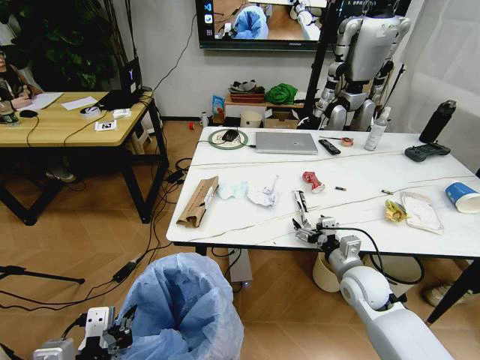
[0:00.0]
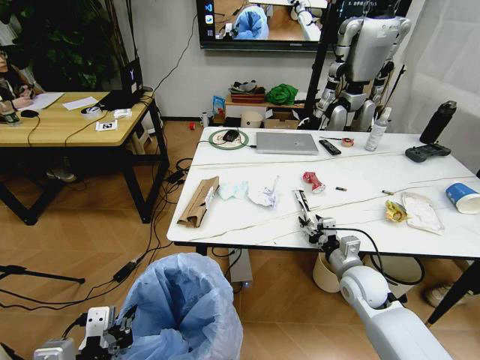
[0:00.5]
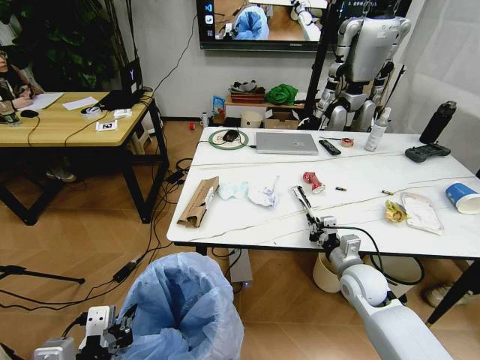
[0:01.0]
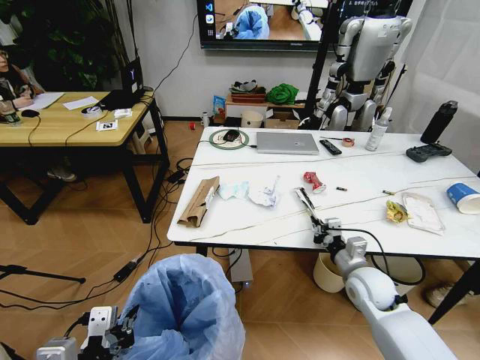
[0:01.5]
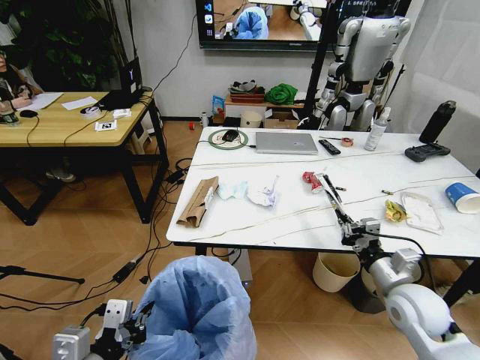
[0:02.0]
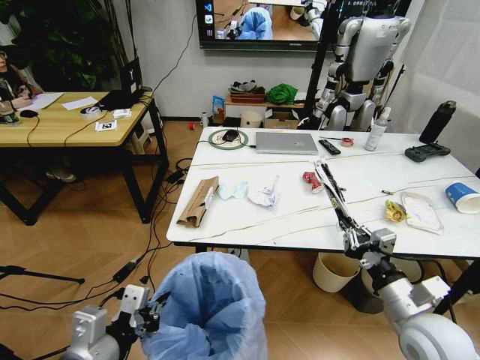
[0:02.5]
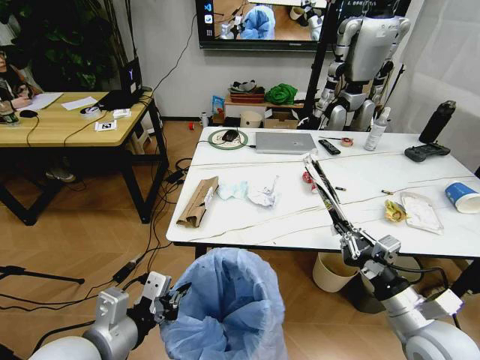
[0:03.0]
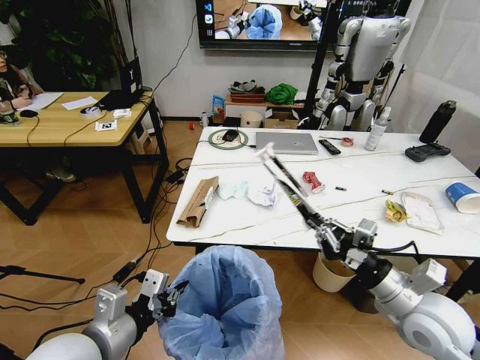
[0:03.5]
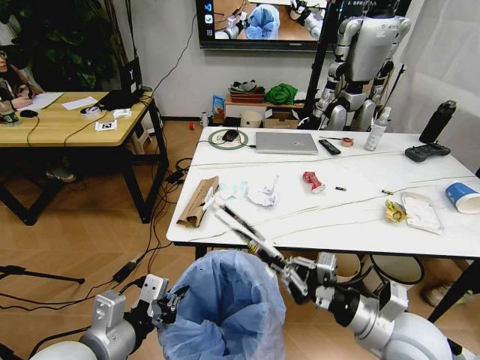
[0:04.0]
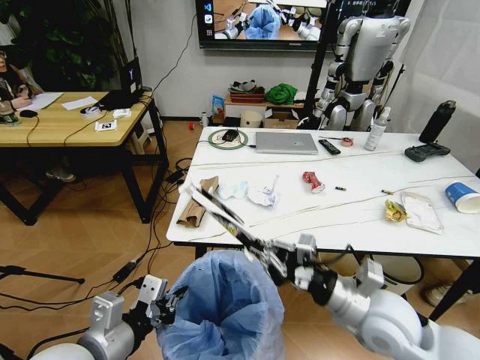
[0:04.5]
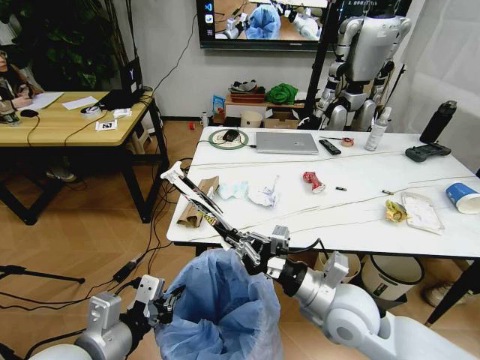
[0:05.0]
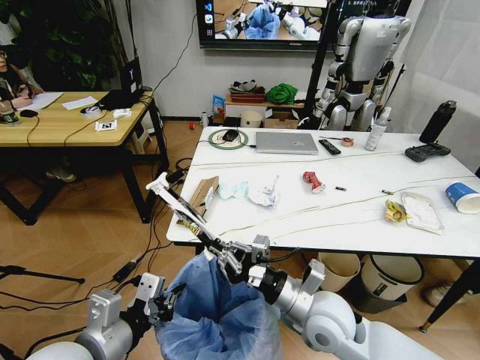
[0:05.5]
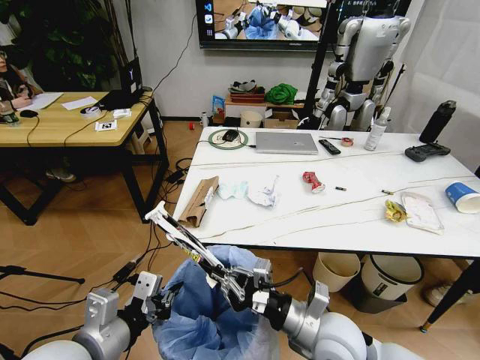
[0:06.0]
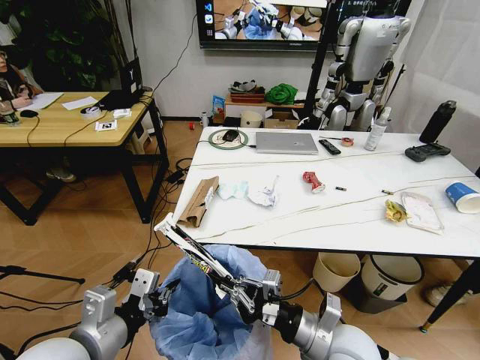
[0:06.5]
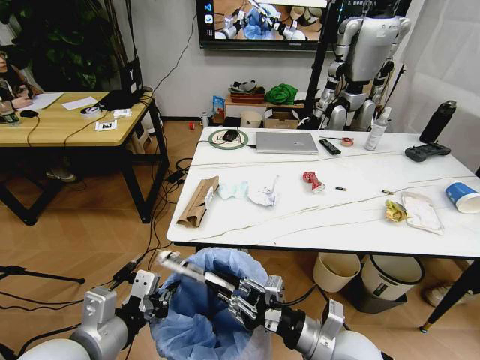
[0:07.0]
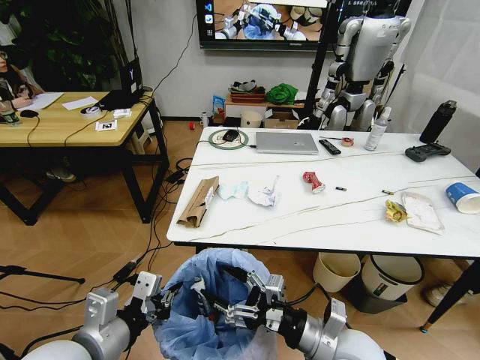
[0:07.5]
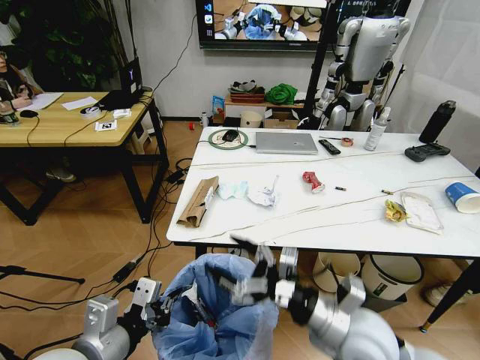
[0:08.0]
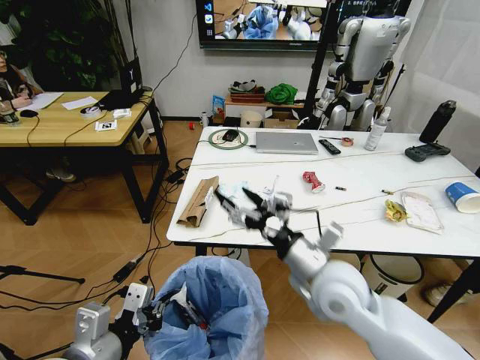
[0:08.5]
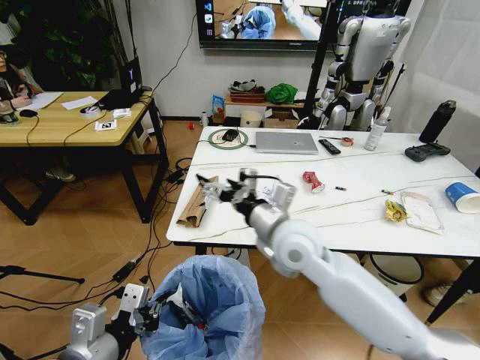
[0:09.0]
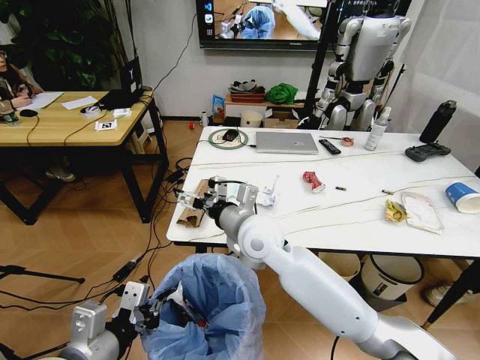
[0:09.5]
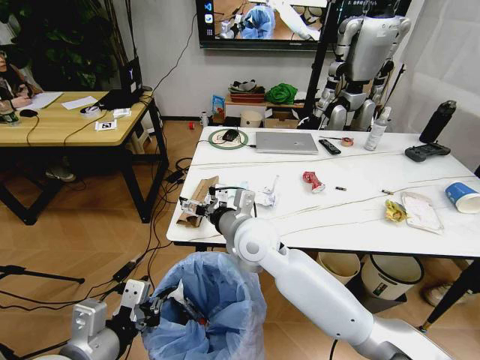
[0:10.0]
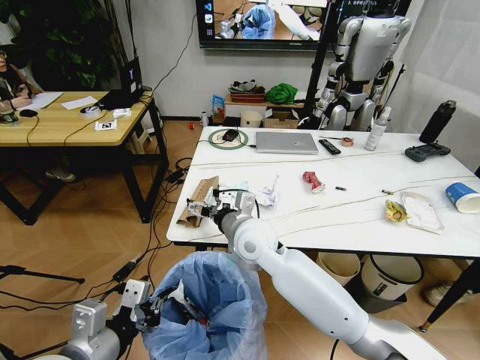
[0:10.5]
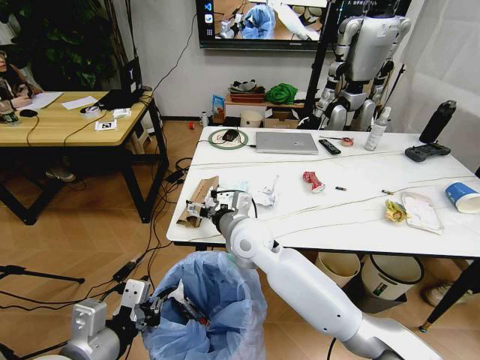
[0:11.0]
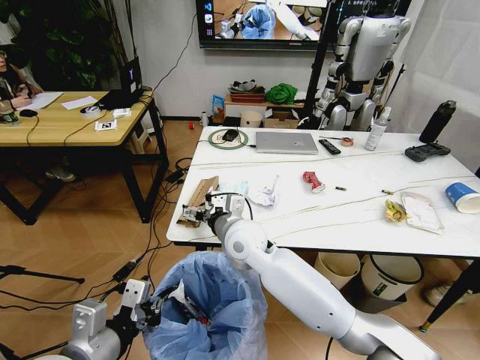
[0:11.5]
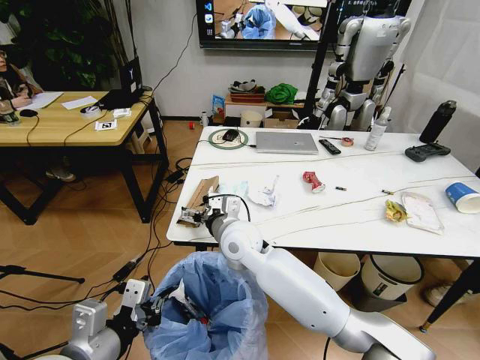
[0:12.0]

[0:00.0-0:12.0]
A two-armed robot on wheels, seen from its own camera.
Task of the whole recording: Pick up the trash bin and place the trash from the table into it.
0:00.0 to 0:02.0: The right gripper shifts about 10 cm backward and to the right, and closes its fingers.
0:02.0 to 0:04.0: The left gripper travels forward by about 5 cm. Meanwhile the right gripper moves to the left and backward, roughly 10 cm.
0:04.0 to 0:06.0: The right gripper is displaced to the left by about 10 cm.
0:06.0 to 0:08.0: The right gripper changes place by approximately 5 cm, and opens.
0:08.0 to 0:10.0: The right gripper shifts roughly 25 cm to the left and forward.
0:10.0 to 0:12.0: The right gripper moves approximately 5 cm.

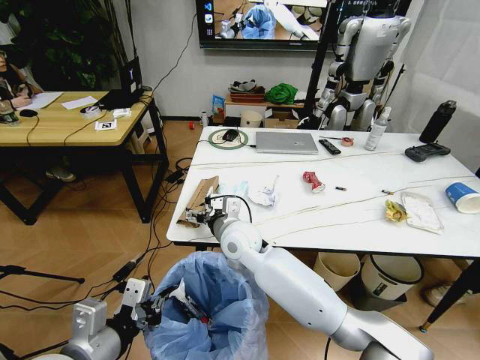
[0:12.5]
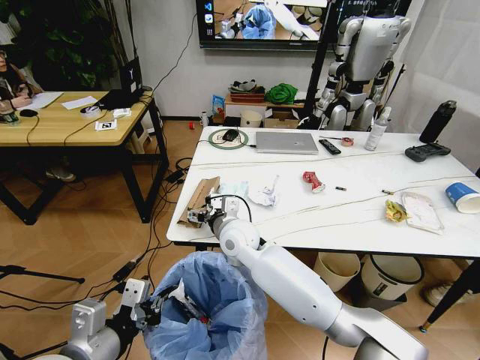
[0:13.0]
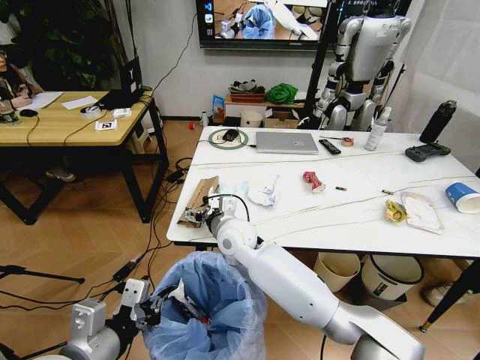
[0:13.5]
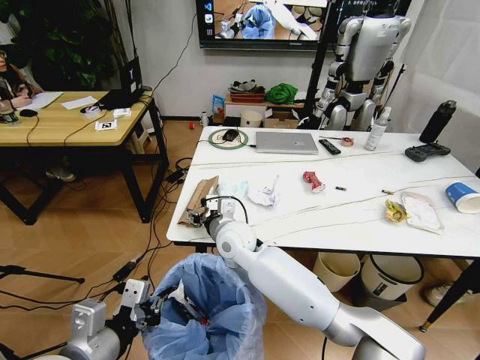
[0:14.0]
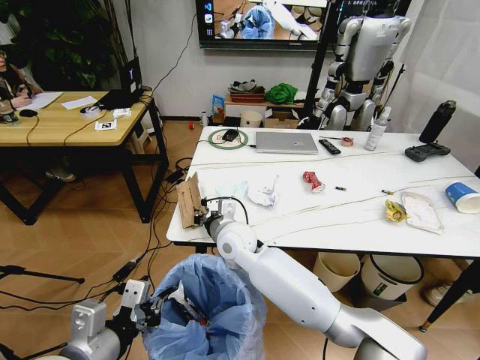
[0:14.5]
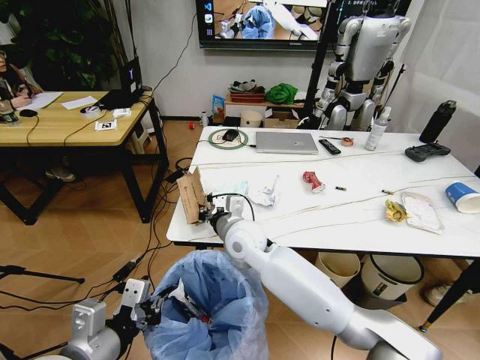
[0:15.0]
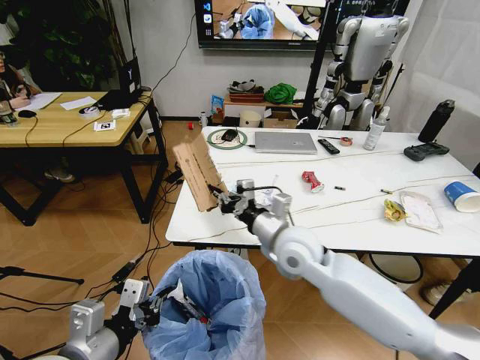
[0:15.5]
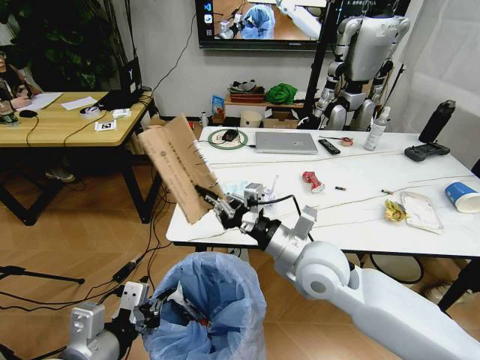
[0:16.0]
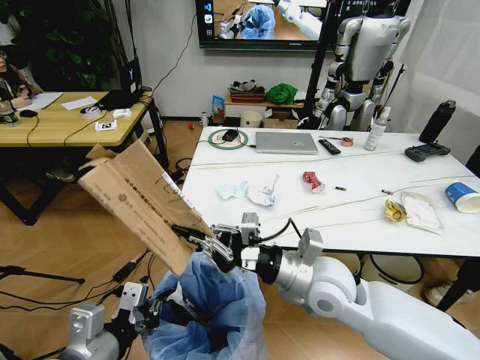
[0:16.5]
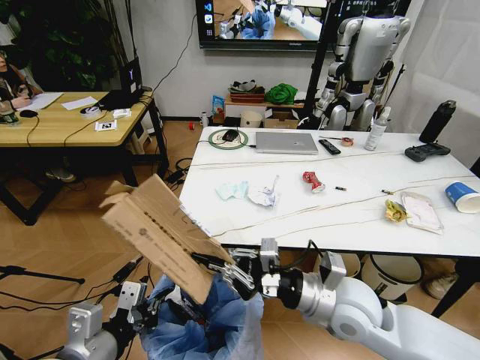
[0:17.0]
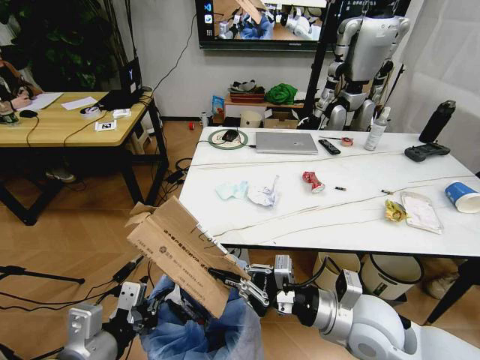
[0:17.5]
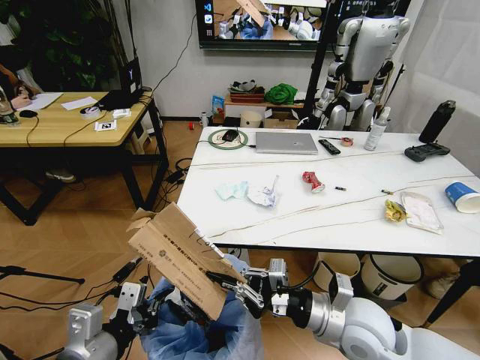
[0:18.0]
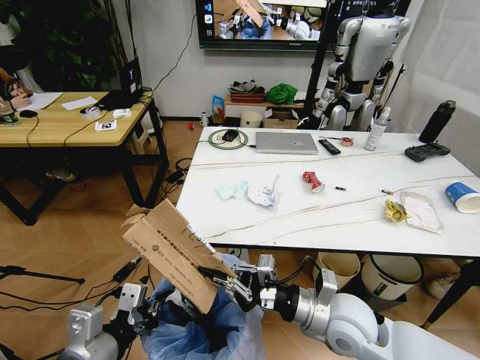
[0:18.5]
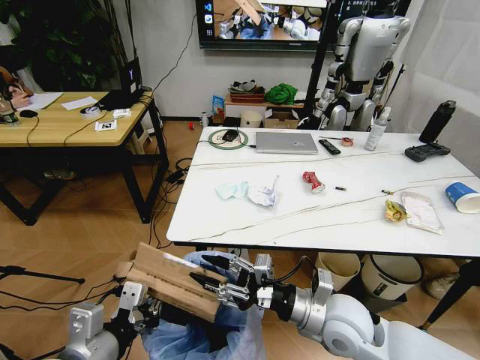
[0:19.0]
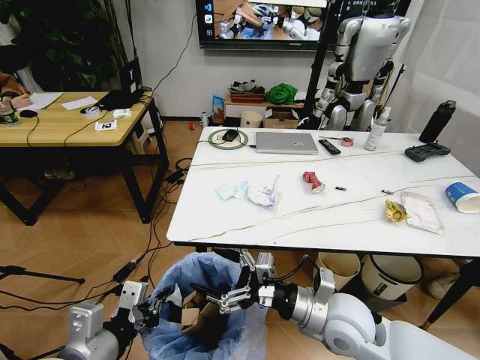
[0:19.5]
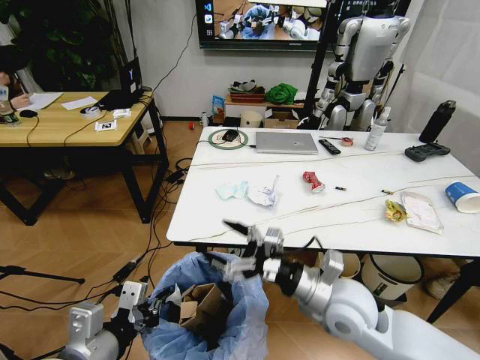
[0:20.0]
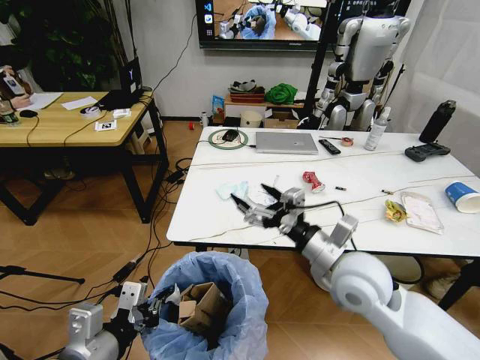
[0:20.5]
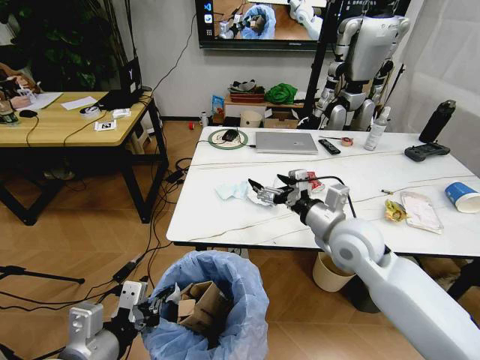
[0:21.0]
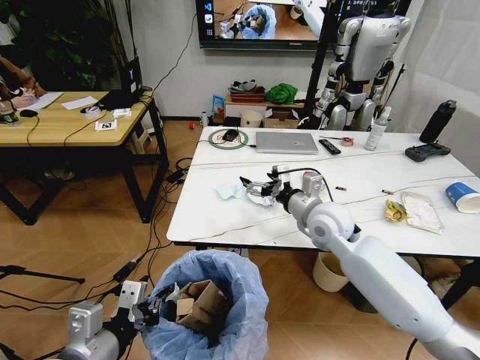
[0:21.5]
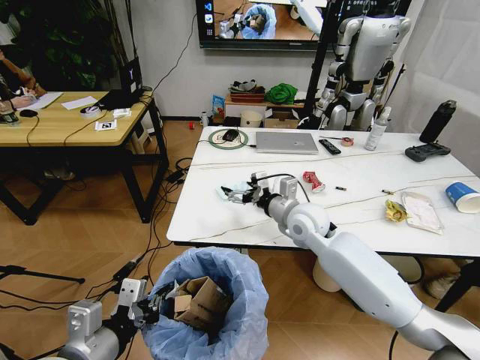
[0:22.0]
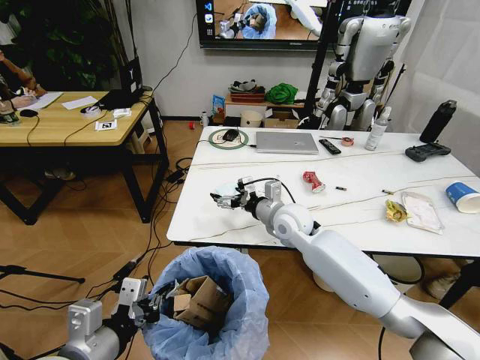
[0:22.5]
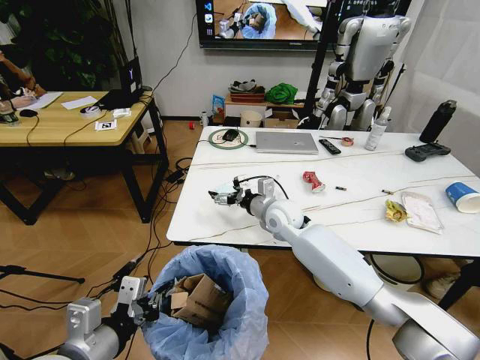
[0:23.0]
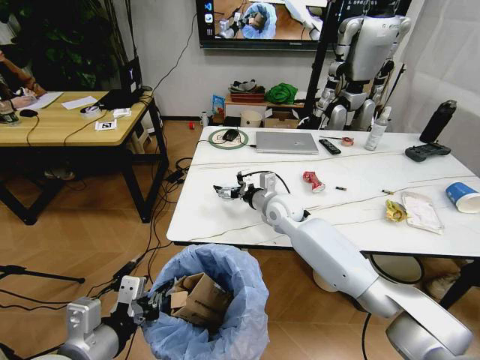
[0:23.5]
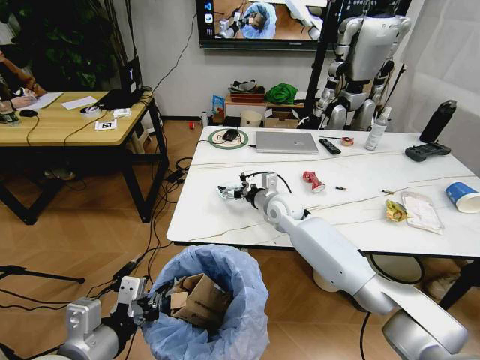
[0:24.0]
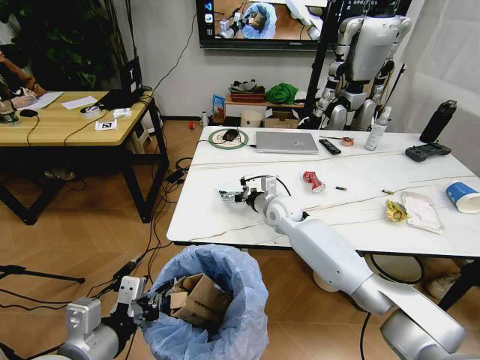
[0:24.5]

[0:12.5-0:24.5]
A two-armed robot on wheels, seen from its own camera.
Task of the whole recording: Pick up the trash bin and place the trash from the table into it.
0:12.5 to 0:14.5: The right gripper closes up.
0:14.5 to 0:16.5: The right gripper heads to the right and backward, covering about 20 cm.
0:16.5 to 0:18.5: The right gripper heads downward, covering roughly 5 cm.
0:18.5 to 0:20.5: The right gripper moves upward, approximately 10 cm, and opens.
0:20.5 to 0:22.5: The right gripper goes about 20 cm forward and to the left.
0:22.5 to 0:24.5: The right gripper goes roughly 5 cm forward.

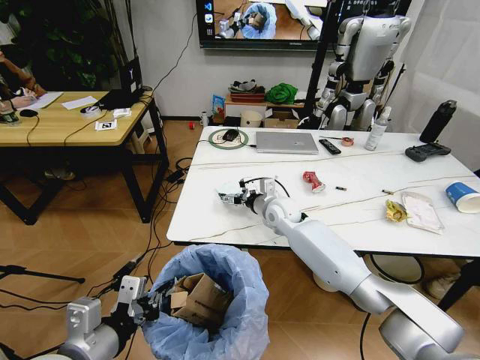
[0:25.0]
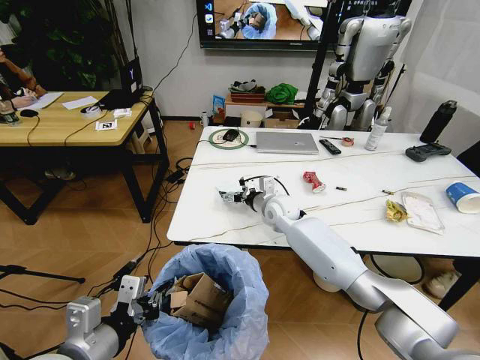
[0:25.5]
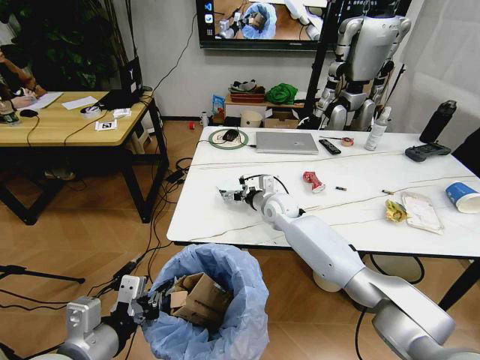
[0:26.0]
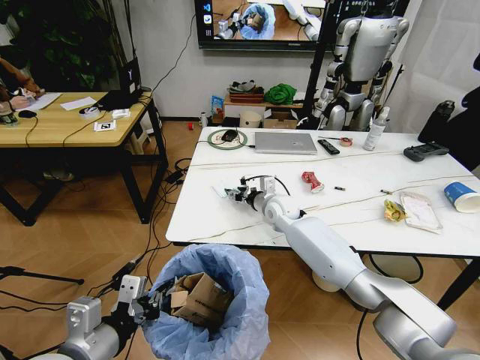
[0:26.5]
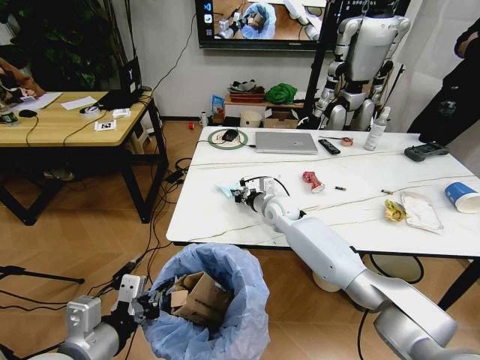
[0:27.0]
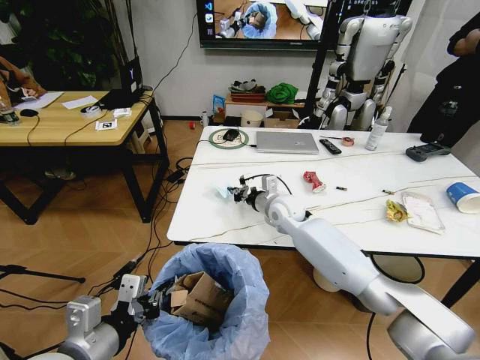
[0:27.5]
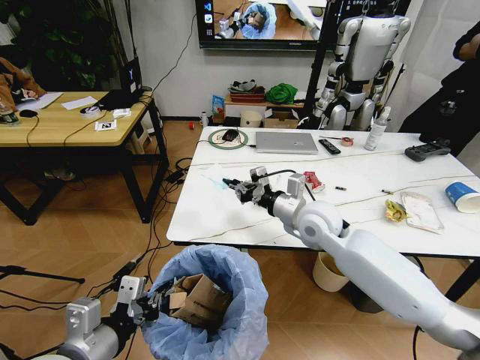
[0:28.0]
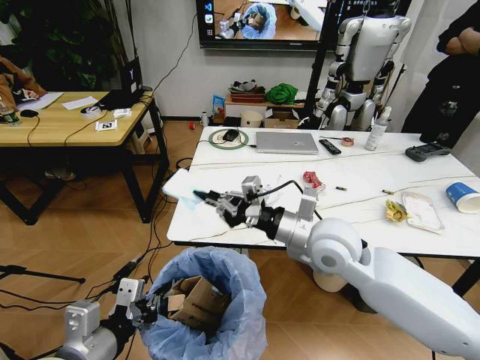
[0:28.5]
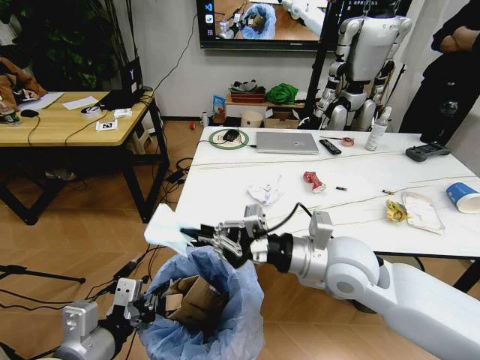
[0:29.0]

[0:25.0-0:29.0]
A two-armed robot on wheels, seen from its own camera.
Task of the whole recording: Pick up the trash bin and place the trash from the table into it.
0:25.0 to 0:27.0: The right gripper closes its fingers.
0:27.0 to 0:29.0: The right gripper is displaced backward and upward by about 25 cm.
